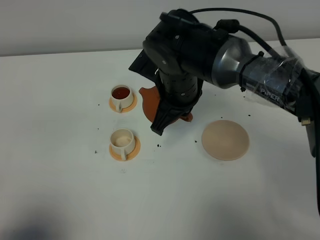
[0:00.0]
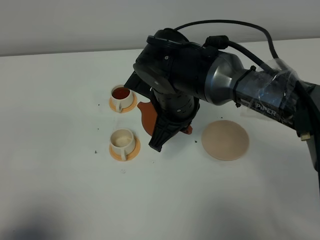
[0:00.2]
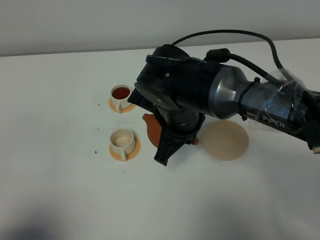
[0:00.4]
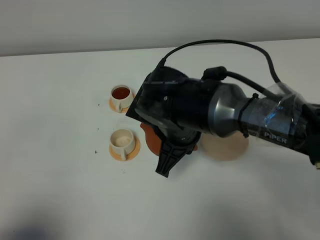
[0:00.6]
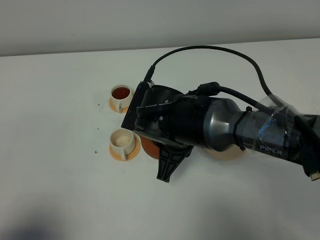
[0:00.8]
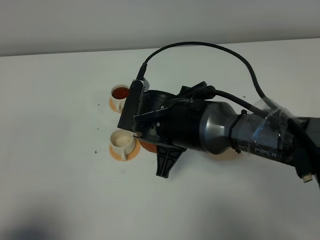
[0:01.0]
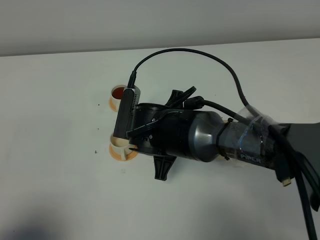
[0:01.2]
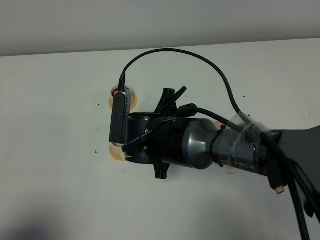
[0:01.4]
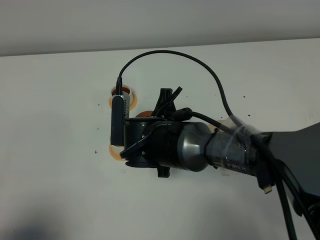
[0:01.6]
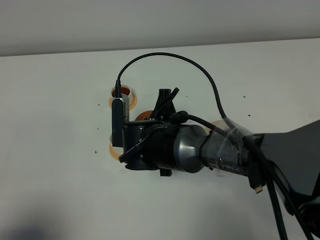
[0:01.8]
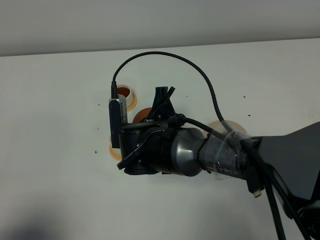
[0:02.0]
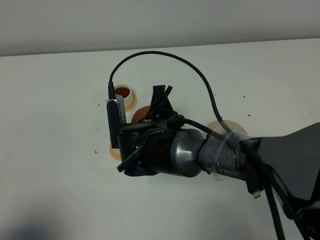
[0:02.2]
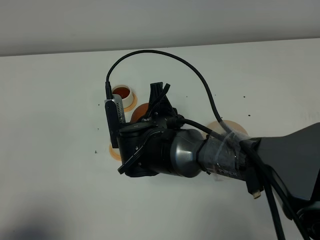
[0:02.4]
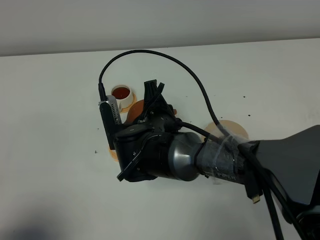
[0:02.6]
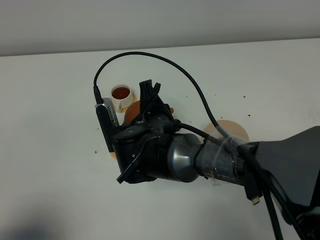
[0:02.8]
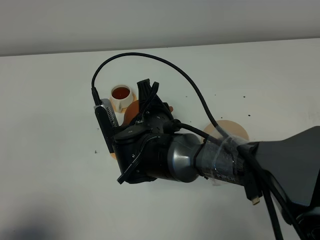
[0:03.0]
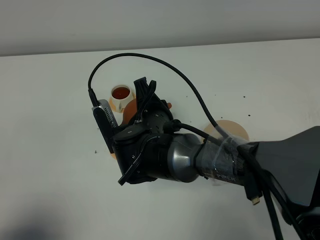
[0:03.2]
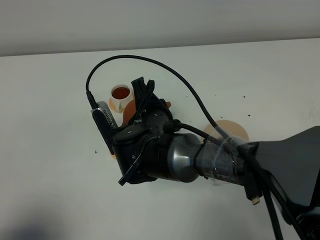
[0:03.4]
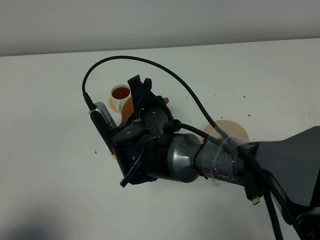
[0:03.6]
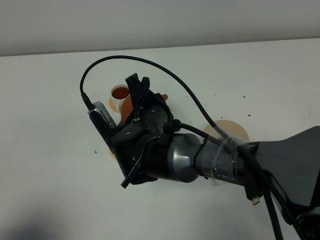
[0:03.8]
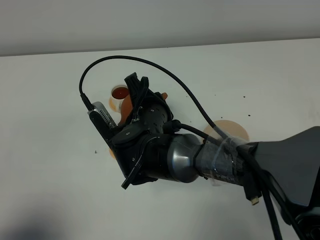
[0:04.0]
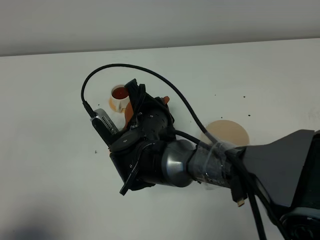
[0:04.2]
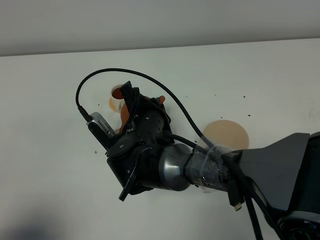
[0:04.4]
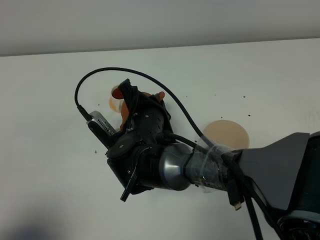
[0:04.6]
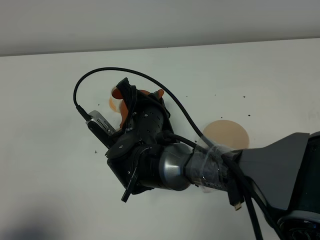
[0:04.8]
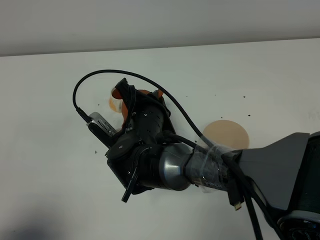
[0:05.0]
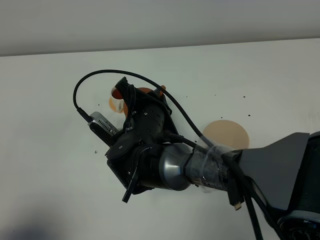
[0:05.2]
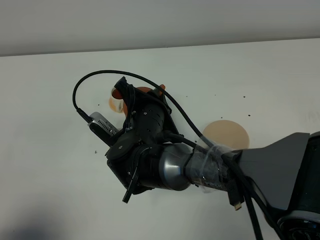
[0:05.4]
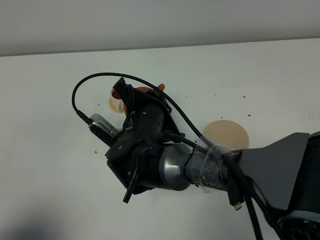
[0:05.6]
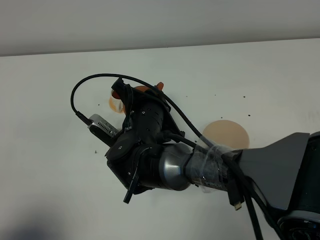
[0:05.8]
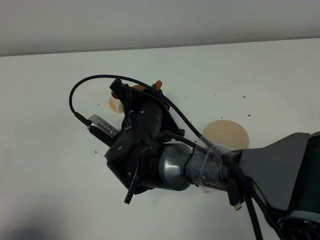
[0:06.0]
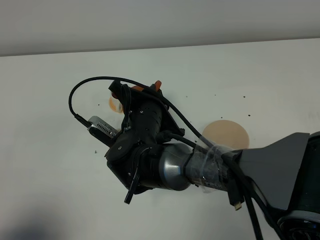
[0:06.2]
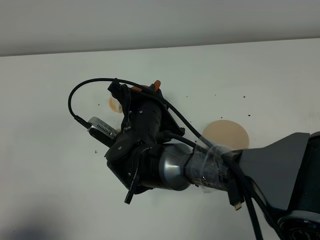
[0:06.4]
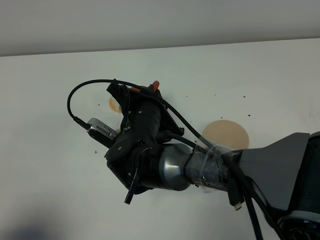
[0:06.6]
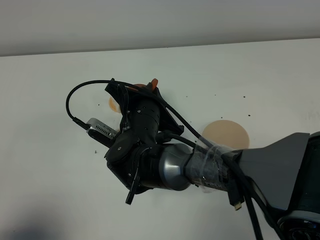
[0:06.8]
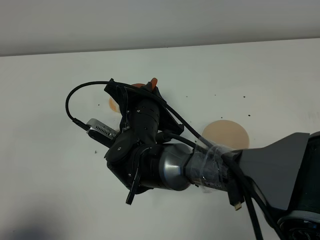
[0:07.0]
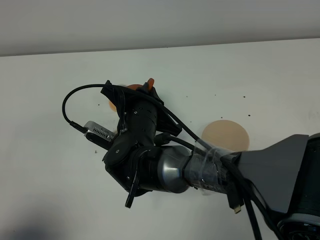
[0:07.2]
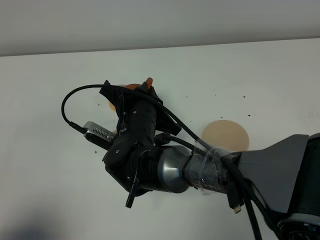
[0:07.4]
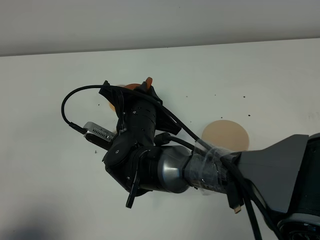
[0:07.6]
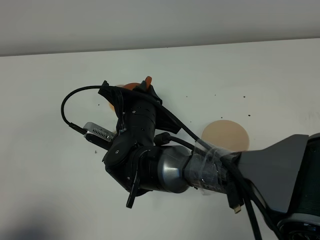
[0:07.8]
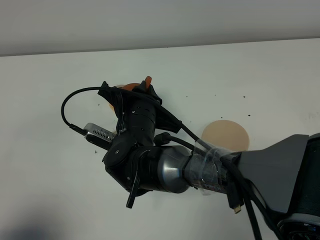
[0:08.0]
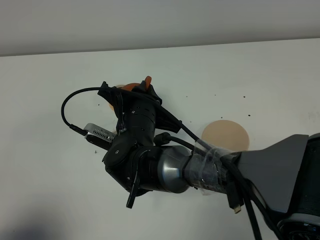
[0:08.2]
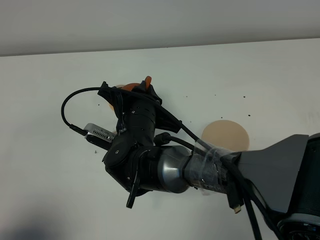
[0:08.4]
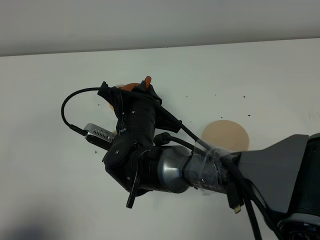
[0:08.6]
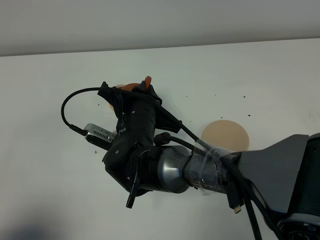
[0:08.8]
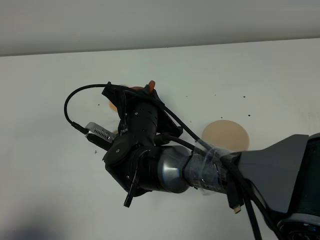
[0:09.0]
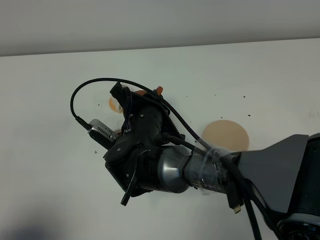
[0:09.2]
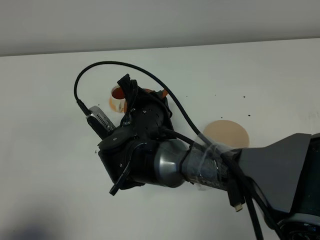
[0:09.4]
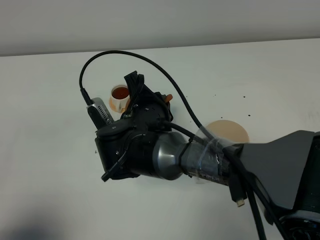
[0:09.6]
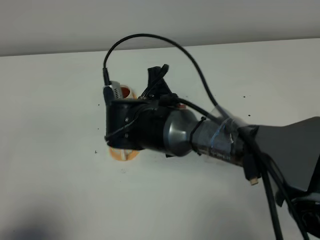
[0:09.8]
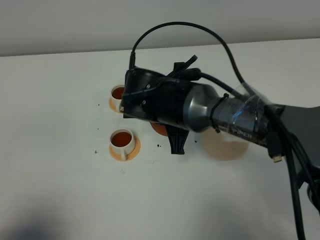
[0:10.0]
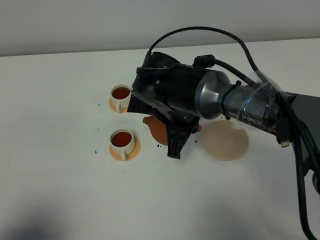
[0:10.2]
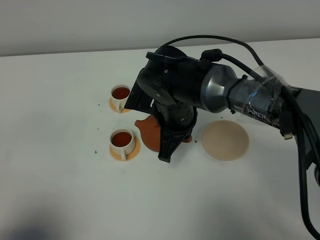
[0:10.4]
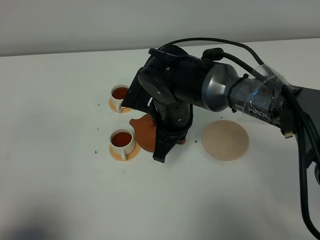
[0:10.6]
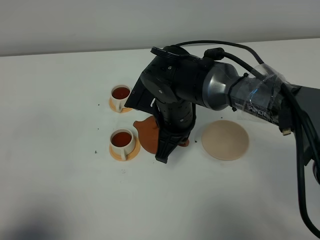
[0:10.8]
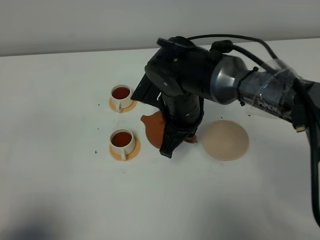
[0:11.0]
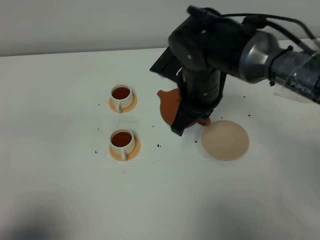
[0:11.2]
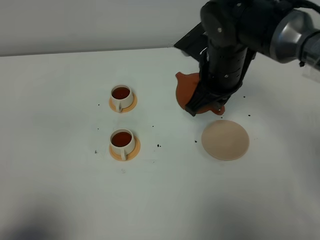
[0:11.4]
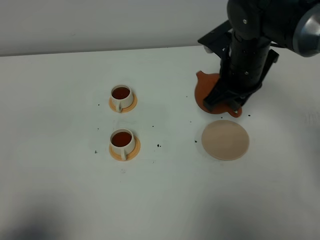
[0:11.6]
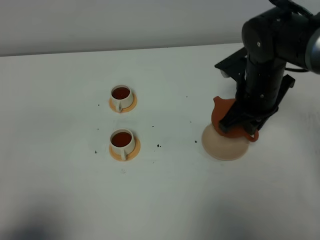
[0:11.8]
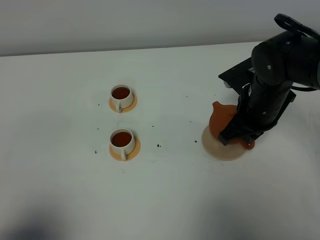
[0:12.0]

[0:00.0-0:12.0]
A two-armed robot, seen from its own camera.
Task of the whole recording: grasp the brown teapot and pour the tea into the two white teacups one by one, put the brown teapot back in its original place.
Step, 0:00.0 to 0:09.4: Pour tea into the teacup with the right gripper.
0:00.0 to 0:01.6: The right gripper goes approximately 10 cm downward and backward.
0:03.0 to 0:04.4: There are only small adjustments of the grippers.
0:04.4 to 0:06.0: The grippers move only a little.
0:06.0 to 0:07.6: The grippers stay close to where they were, moving slightly.
0:07.6 to 0:09.0: Both grippers stay put.
0:09.0 to 0:10.4: The right gripper moves to the right, some 5 cm.
0:10.4 to 0:12.0: The right gripper is displaced to the right by some 15 cm.

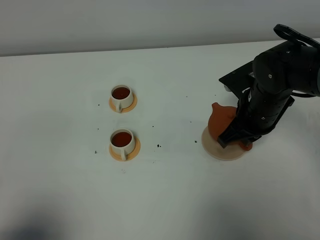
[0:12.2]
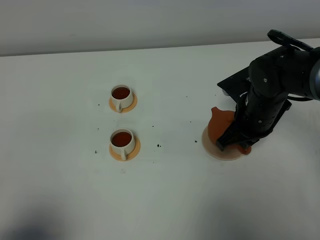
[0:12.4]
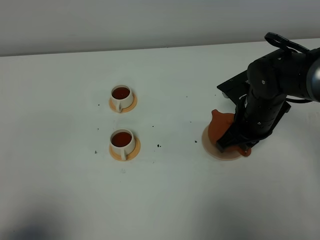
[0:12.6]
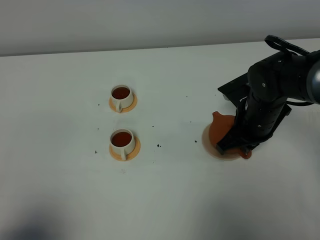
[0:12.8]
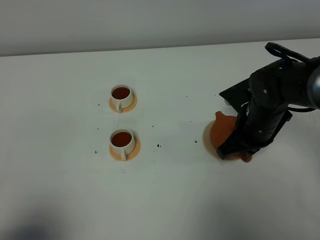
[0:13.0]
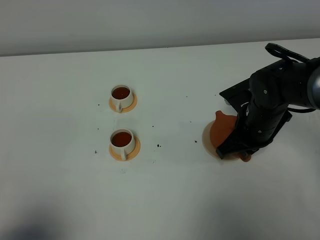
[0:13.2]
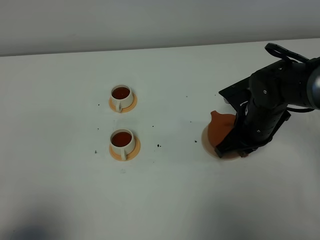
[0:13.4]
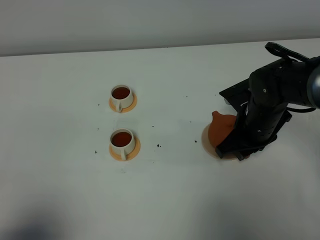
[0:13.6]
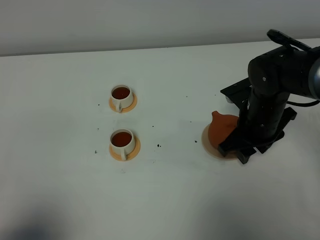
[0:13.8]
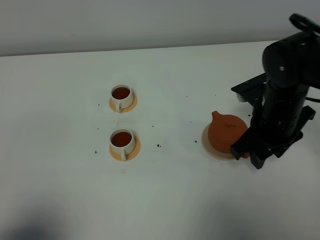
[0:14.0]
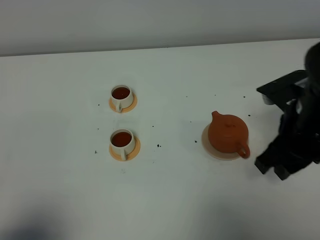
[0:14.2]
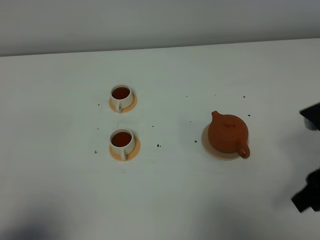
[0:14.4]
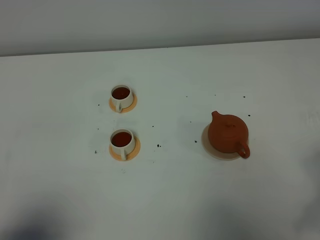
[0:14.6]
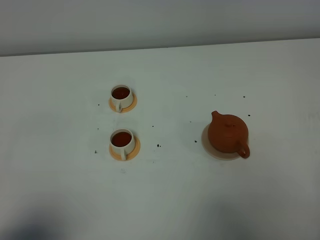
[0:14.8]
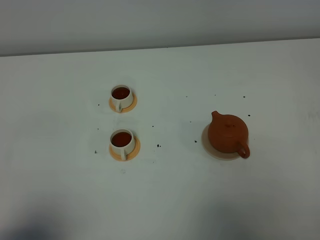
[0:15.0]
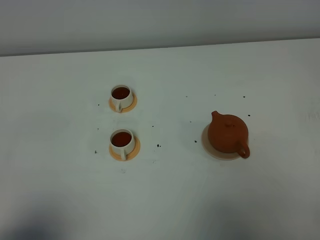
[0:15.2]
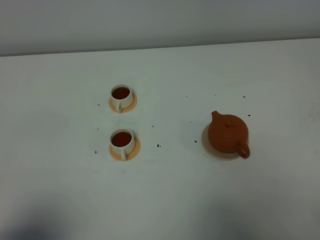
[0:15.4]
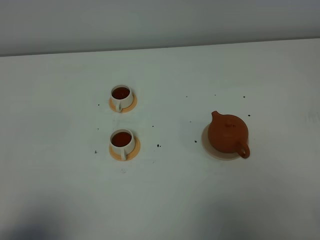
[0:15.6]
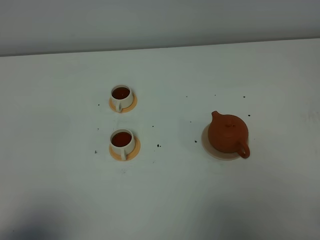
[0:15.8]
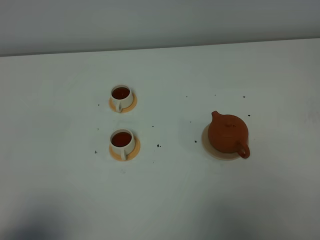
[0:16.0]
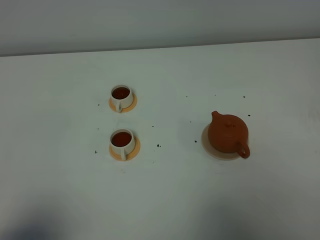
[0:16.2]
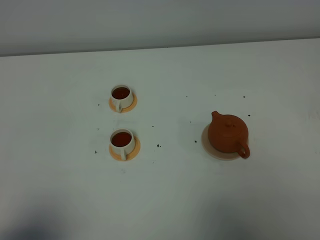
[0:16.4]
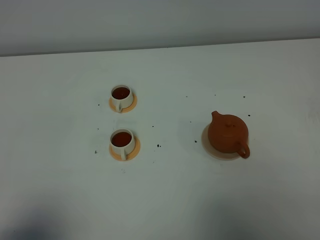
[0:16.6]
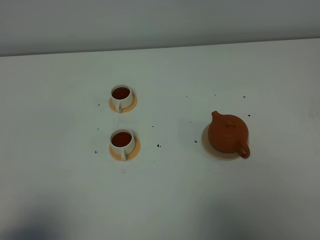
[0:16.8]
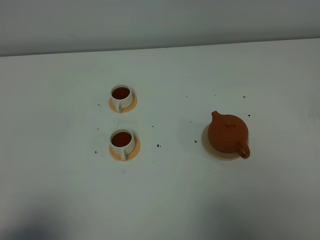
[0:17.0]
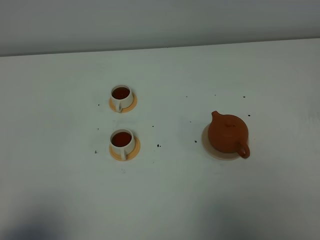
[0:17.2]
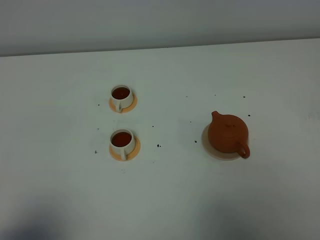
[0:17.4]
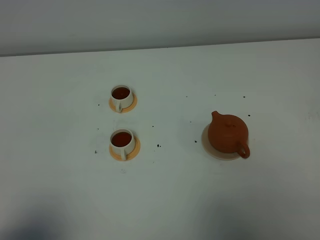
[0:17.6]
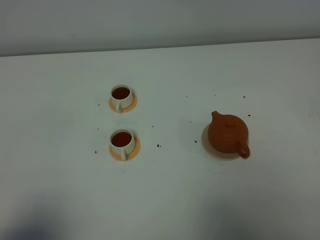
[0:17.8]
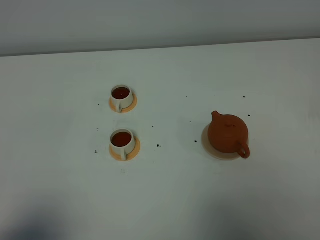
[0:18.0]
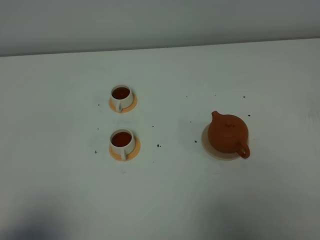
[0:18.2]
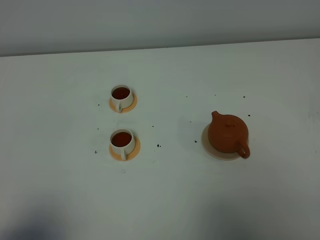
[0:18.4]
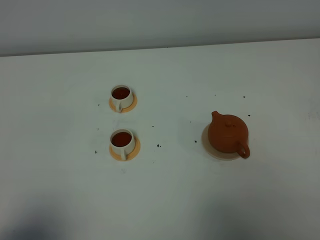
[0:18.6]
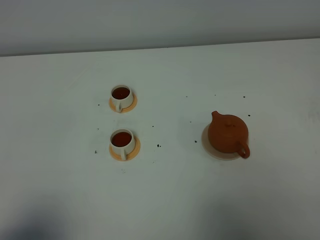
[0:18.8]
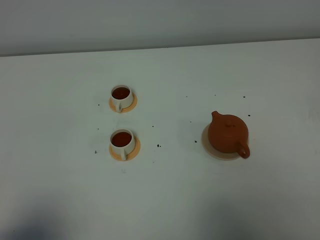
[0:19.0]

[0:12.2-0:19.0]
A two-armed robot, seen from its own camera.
Task of the whole recording: grasp the brown teapot and pour the tea into the two white teacups one by one, put the brown teapot back in its original place.
0:12.2 to 0:13.6: The right gripper opens up.
0:13.6 to 0:15.0: The right gripper goes roughly 30 cm backward, to the right and upward.
0:17.6 to 0:19.0: Both grippers stay about where they are.

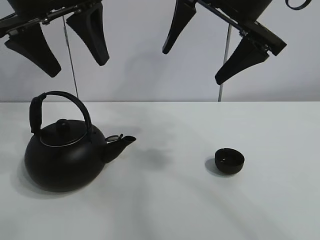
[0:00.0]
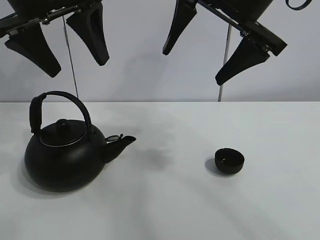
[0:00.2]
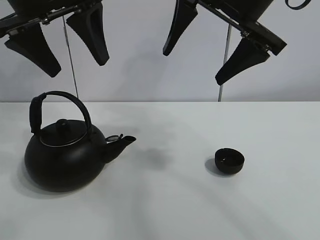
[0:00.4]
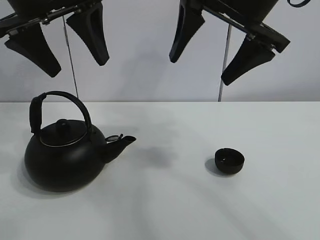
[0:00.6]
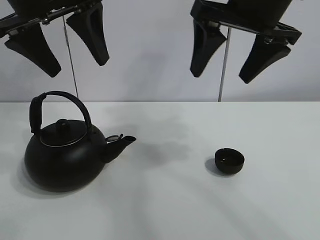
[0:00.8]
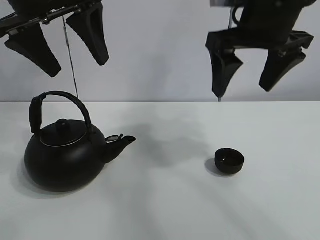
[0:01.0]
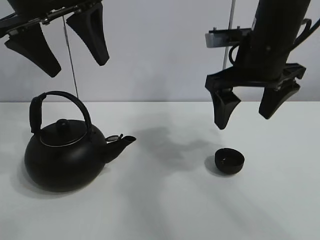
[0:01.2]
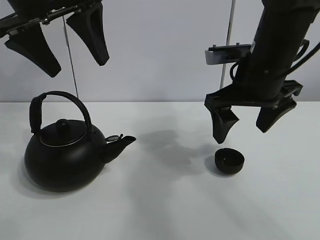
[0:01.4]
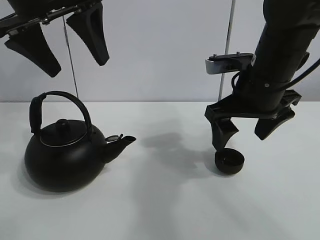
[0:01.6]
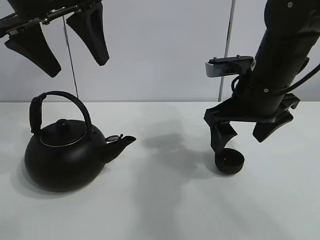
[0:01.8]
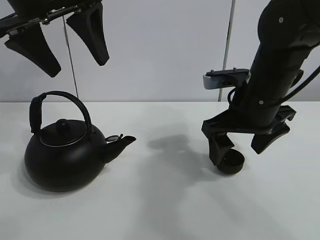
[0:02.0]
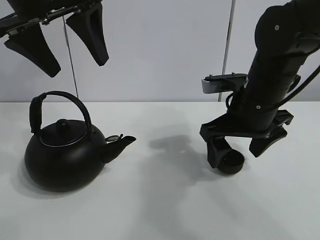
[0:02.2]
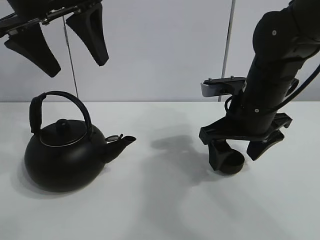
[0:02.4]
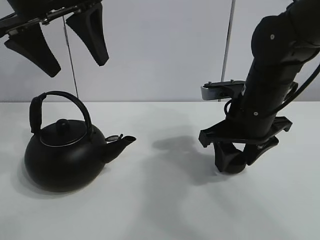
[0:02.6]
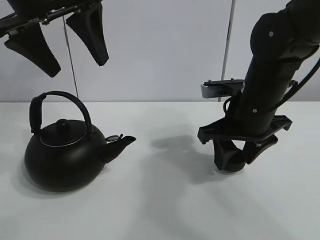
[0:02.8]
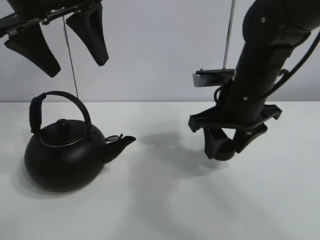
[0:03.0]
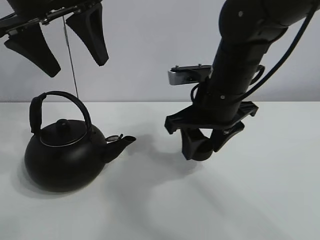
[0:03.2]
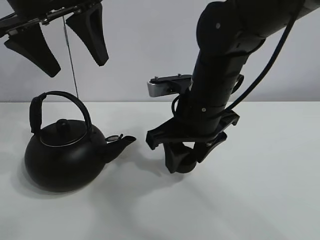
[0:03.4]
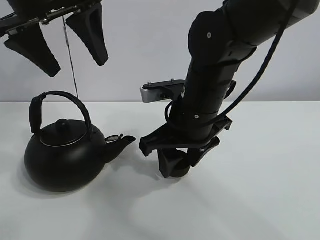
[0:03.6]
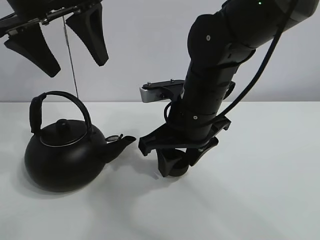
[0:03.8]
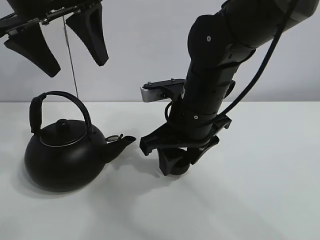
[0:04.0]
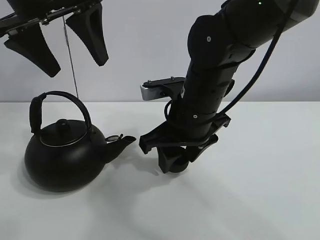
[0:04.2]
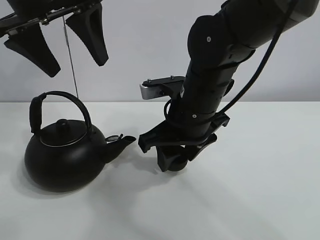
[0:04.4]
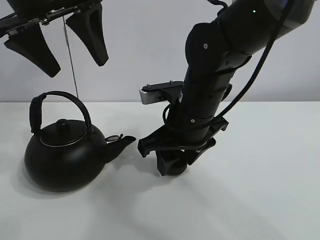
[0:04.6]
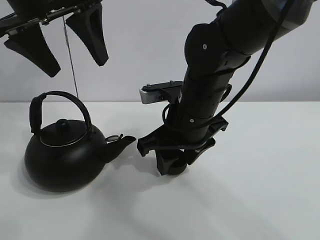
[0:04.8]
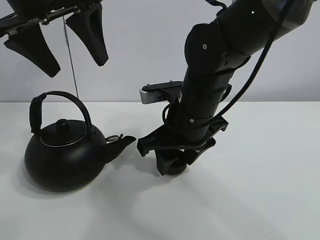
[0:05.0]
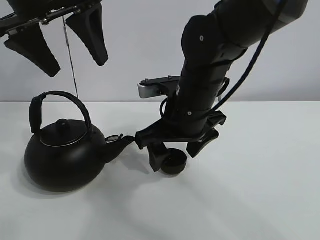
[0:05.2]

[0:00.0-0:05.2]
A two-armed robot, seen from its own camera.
Task of the whole recording: pour tea into the teacup.
Step, 0:00.0 to 0:02.6: Pick up the teacup with the right gripper.
Step, 0:02.8 to 0:05.0: Place the teacup in the center of view with the right gripper.
0:01.8 to 0:03.4: The right gripper moves to the left, some 10 cm, and closes.
0:03.4 to 0:05.2: The right gripper opens its fingers.
